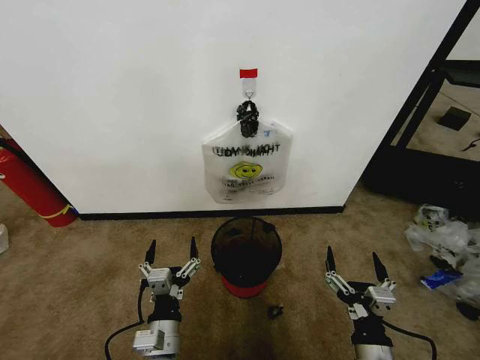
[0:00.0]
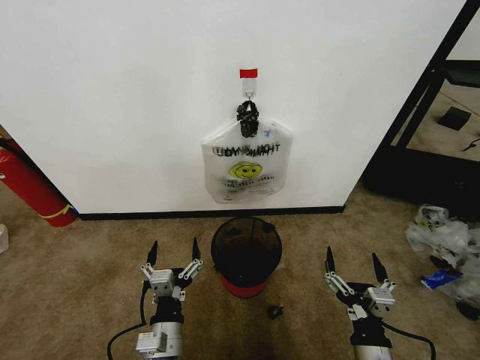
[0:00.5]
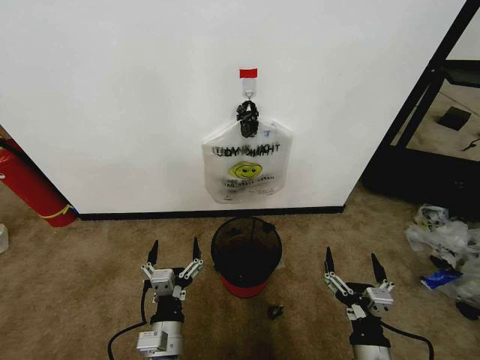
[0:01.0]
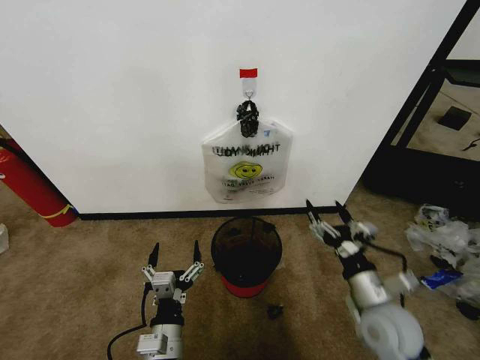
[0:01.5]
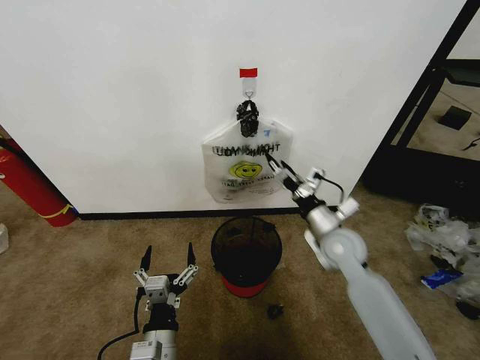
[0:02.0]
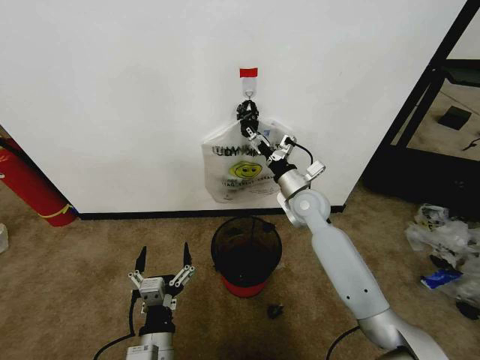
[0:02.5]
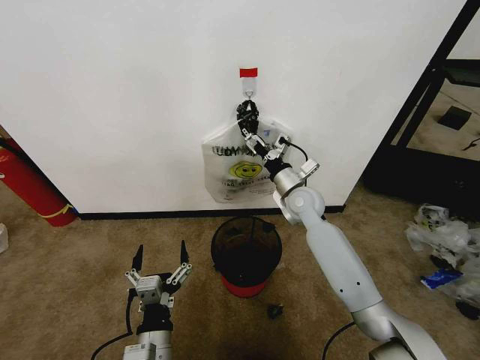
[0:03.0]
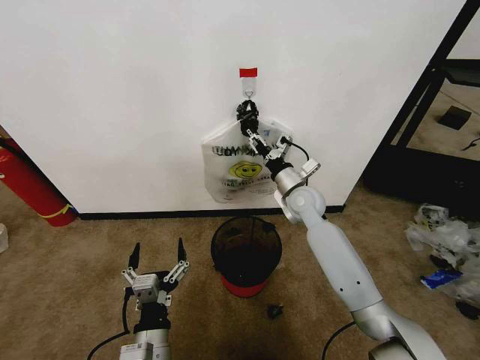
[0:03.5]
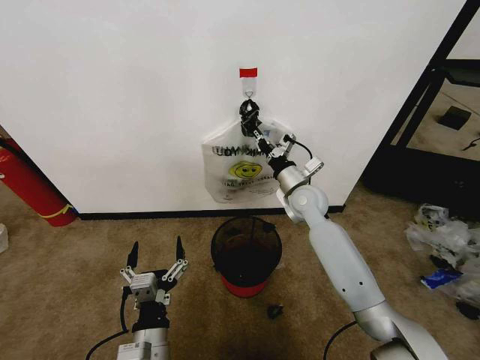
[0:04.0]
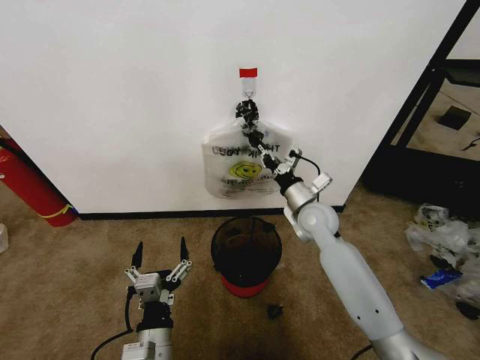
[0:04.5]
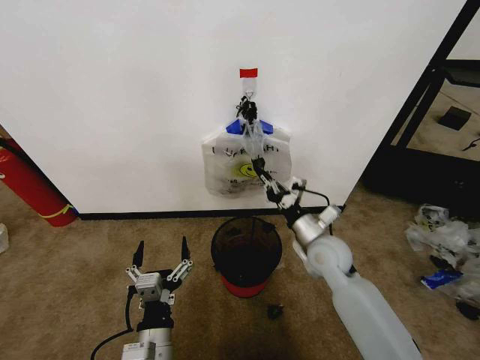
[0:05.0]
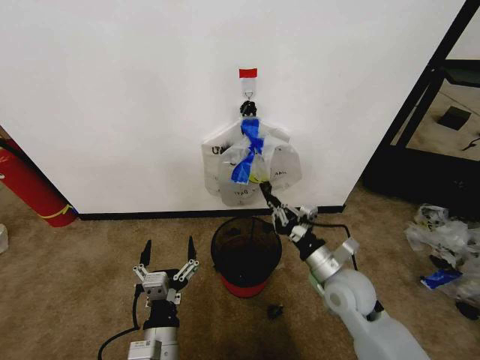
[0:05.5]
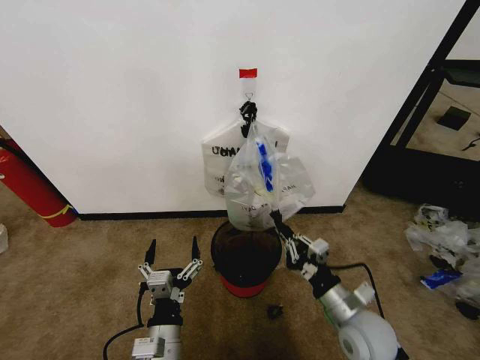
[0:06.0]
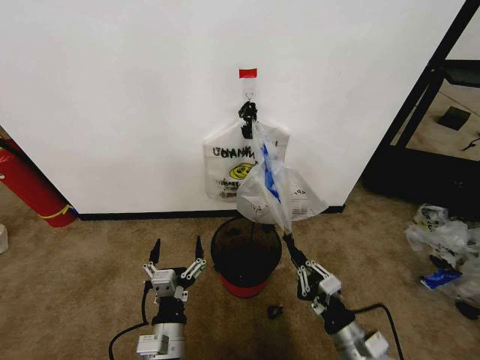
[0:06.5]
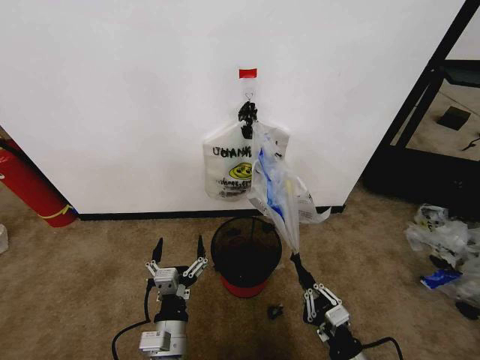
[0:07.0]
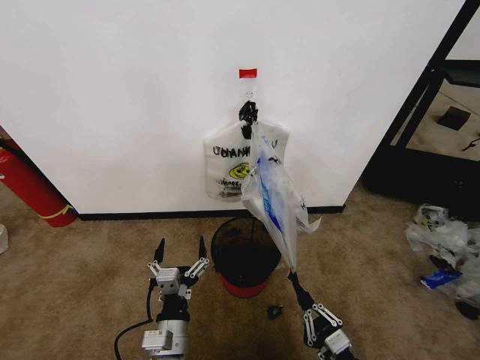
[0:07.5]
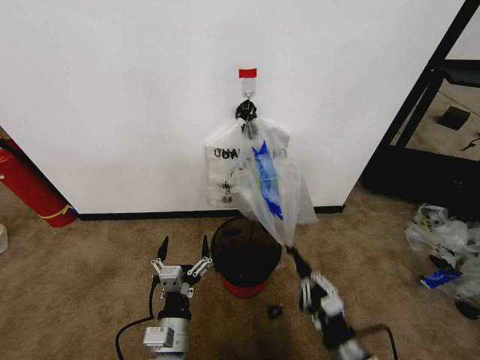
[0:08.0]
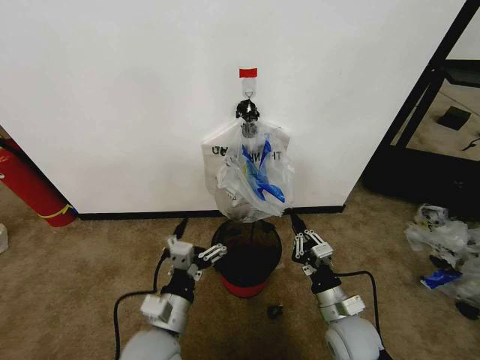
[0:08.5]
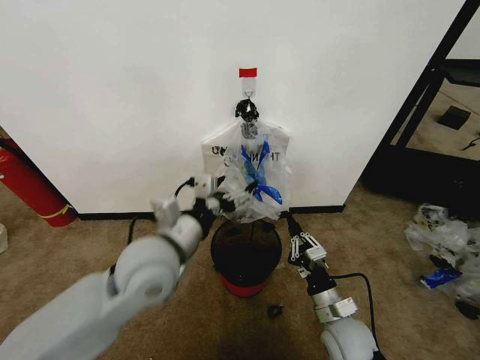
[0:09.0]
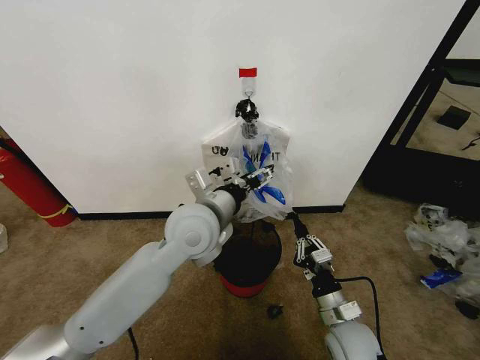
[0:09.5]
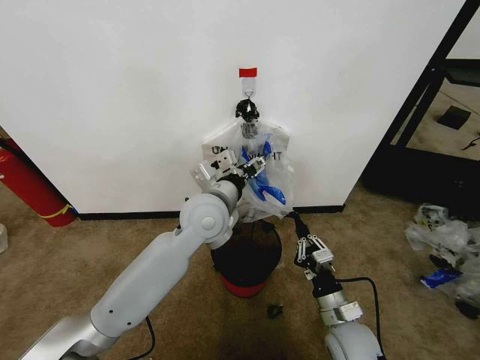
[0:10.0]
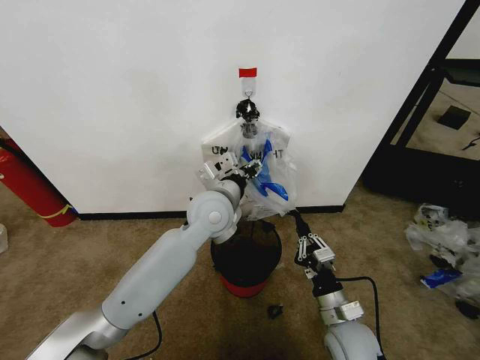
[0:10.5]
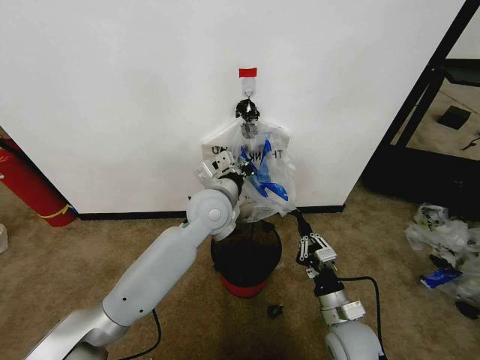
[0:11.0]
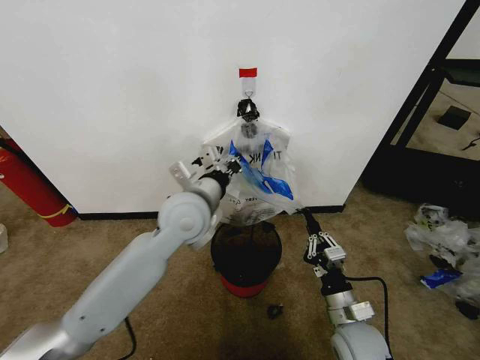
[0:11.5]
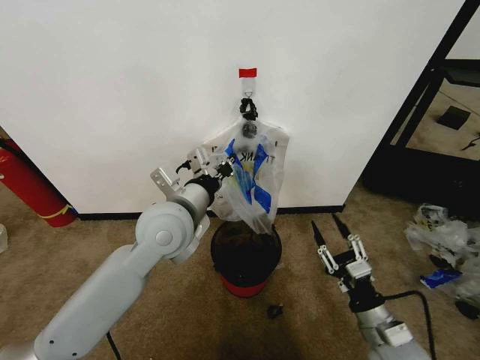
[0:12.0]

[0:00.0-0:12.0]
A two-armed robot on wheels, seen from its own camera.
Task of the whole recording: Pick up the garbage bag from the wall and place it over the trash bin.
0:02.0 to 0:04.0: The right gripper moves forward and to the left, some 15 cm, and closes.
0:04.0 to 0:06.0: The right gripper moves backward, roughly 25 cm.
0:06.0 to 0:08.0: The right gripper travels backward and downward by about 10 cm.
0:08.0 to 0:10.0: The right gripper moves forward, about 10 cm; the left gripper shifts about 30 cm forward and upward.
0:10.0 to 0:12.0: The left gripper shifts approximately 5 cm to the left, and closes its fingers. The right gripper moves to the right, some 5 cm, and opens its fingers.

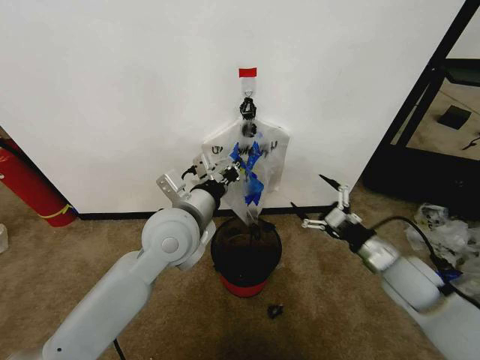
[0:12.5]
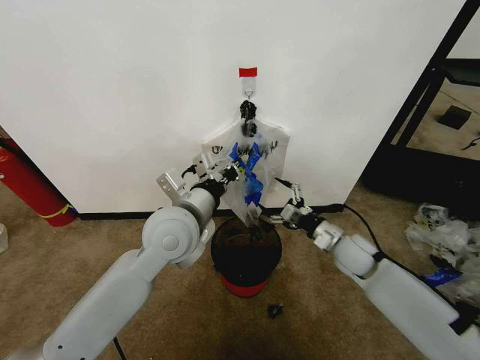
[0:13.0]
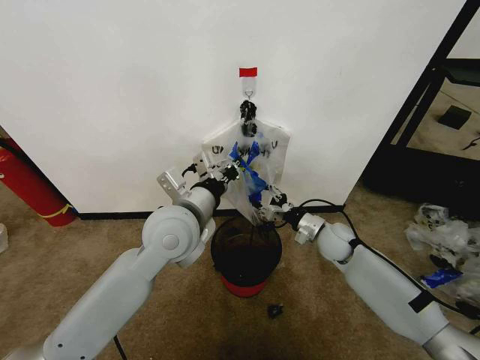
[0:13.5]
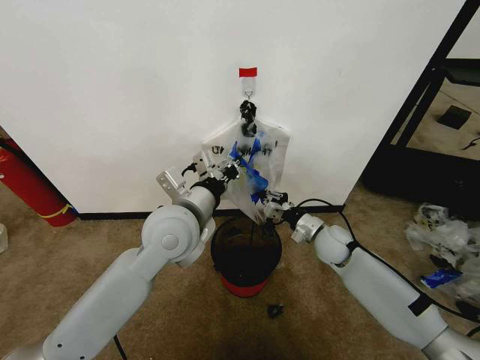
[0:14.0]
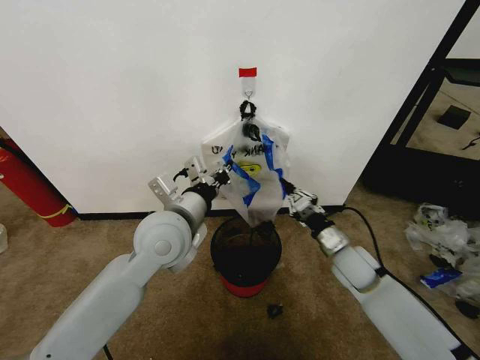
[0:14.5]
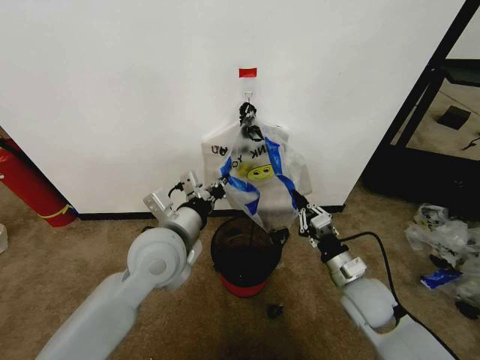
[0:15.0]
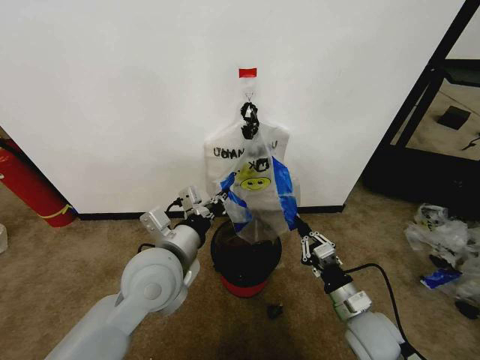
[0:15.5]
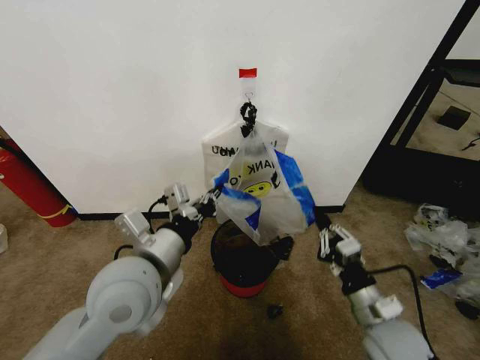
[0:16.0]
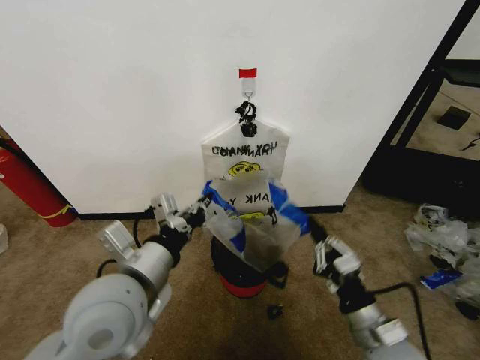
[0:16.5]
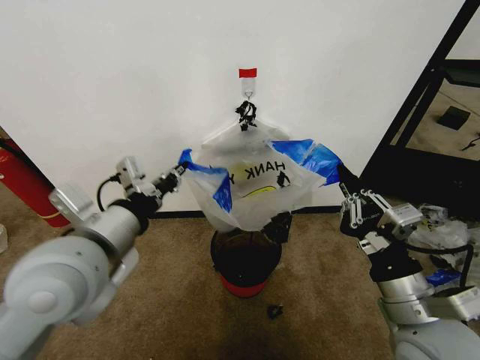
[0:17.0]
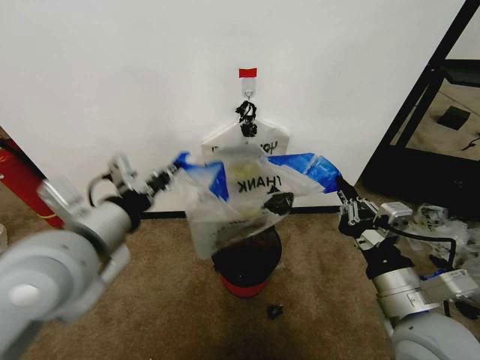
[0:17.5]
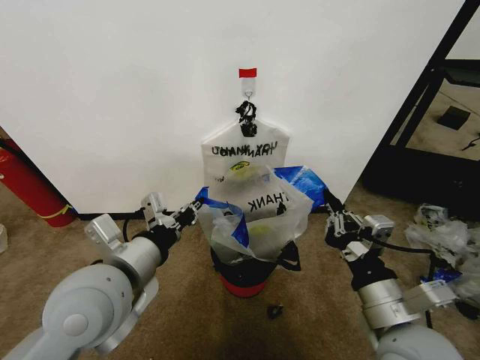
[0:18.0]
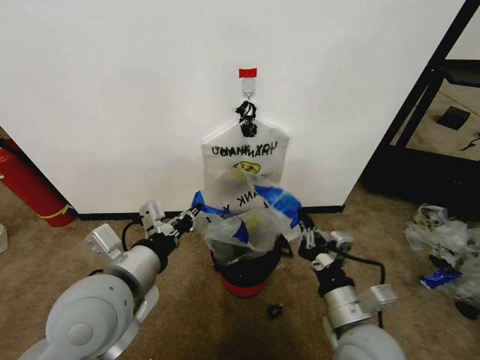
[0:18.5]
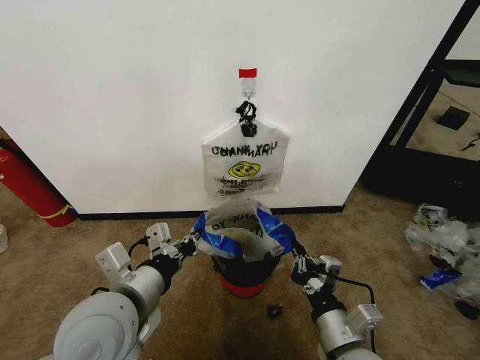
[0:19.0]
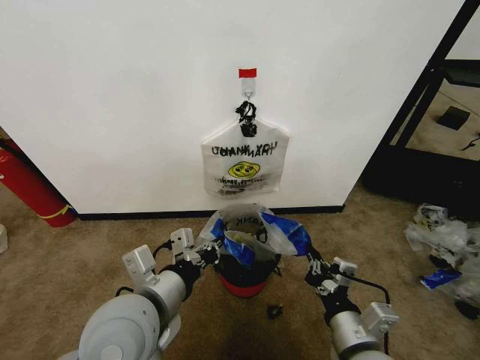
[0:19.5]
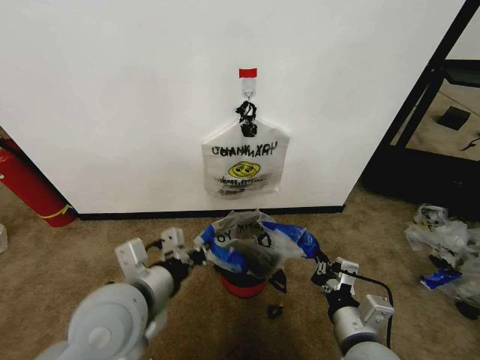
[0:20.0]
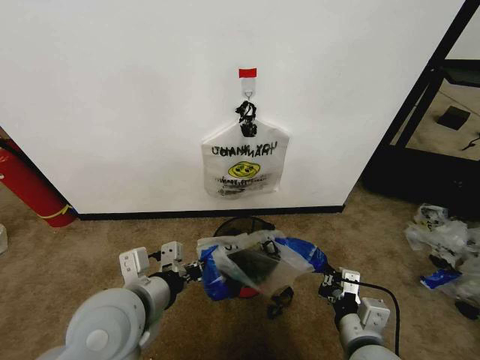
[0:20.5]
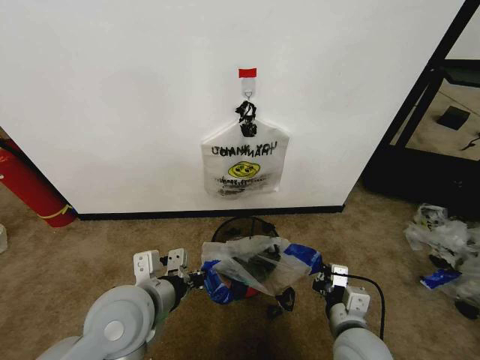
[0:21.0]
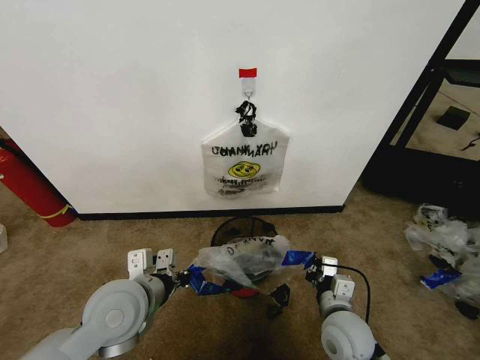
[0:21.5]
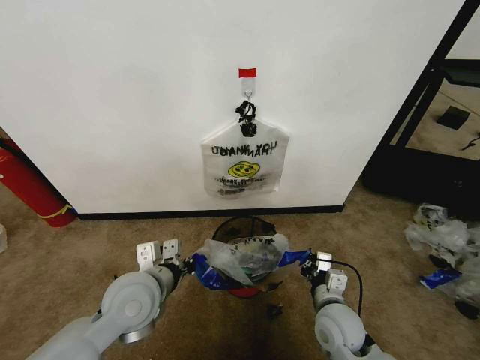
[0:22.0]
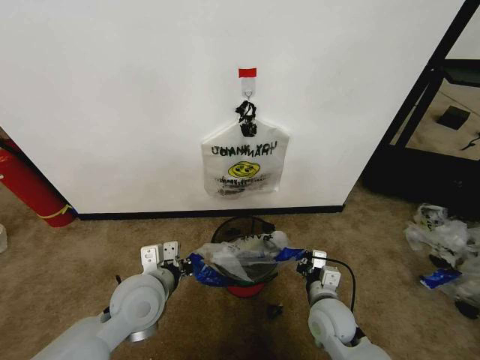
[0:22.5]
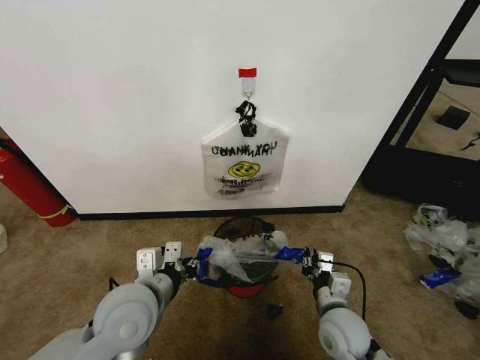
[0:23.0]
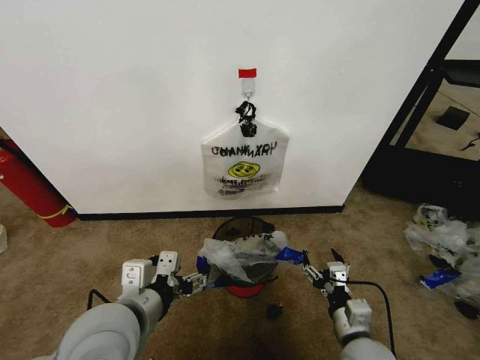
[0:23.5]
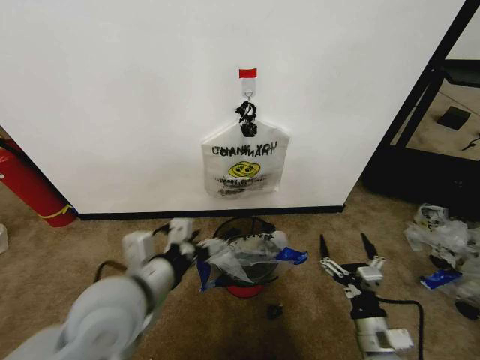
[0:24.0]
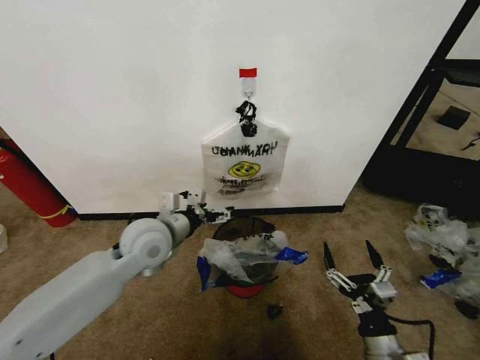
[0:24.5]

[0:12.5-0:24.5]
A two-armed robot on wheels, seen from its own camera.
Task of the whole recording: Pick up the garbage bag from the wall and place it over the trash bin.
0:12.5 to 0:14.5: The right gripper heads to the left, forward and downward, covering roughly 10 cm, and closes up.
0:14.5 to 0:16.5: The left gripper goes approximately 10 cm backward. The right gripper moves backward, some 20 cm.
0:16.5 to 0:18.5: The right gripper travels to the left by about 5 cm, and moves about 15 cm upward and comes back; the left gripper moves roughly 10 cm upward and comes back.
0:20.5 to 0:22.5: The left gripper heads downward and forward, covering about 10 cm, while the right gripper heads forward and downward, covering approximately 15 cm.
0:22.5 to 0:24.5: The right gripper is displaced backward and to the right by roughly 15 cm, and opens its fingers, while the left gripper goes about 10 cm forward and upward, and opens.

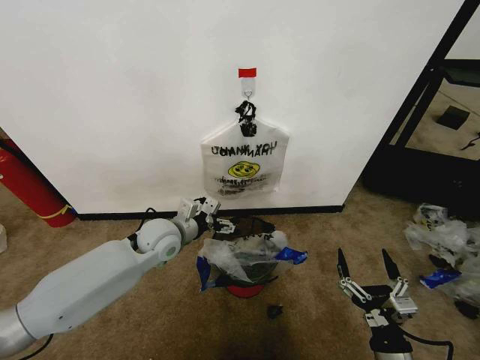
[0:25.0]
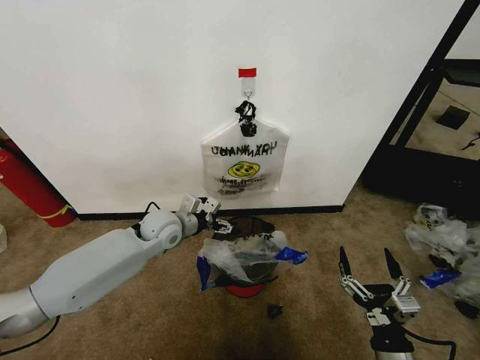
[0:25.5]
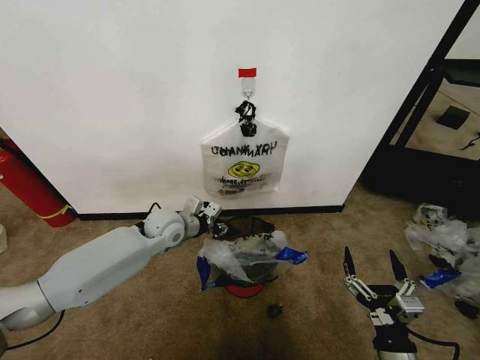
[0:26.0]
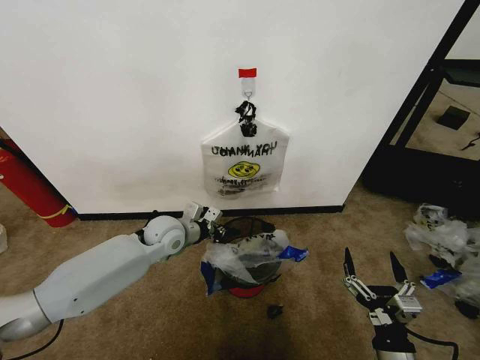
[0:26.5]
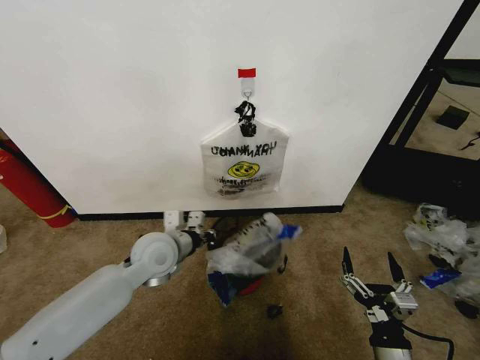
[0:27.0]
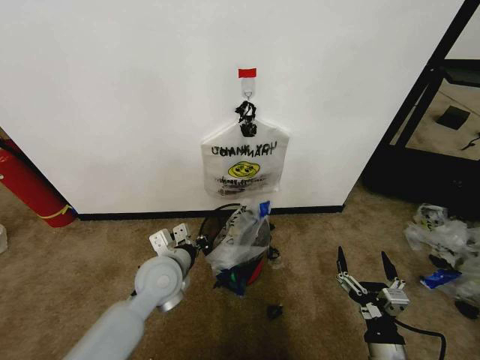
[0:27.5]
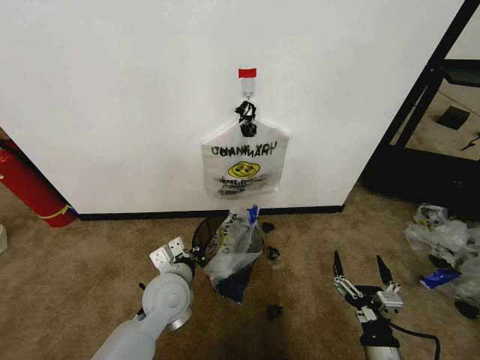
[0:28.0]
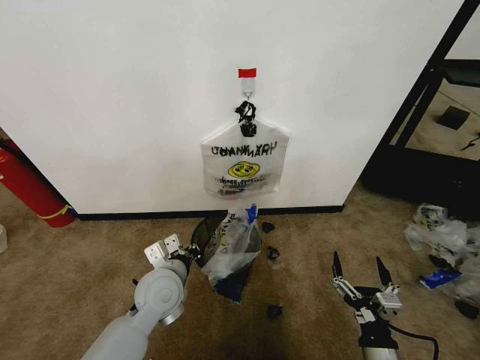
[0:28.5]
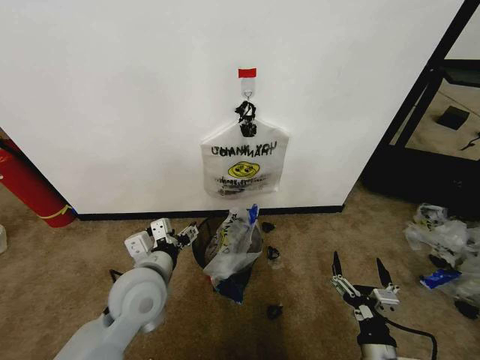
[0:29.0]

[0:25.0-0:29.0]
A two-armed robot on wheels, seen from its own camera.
Task of the whole recording: Pick up the garbage bag from the wall and place it over the trash bin.
0:25.0 to 0:27.0: The left gripper ends up roughly 5 cm from where it was, and closes its fingers.
0:27.0 to 0:29.0: The left gripper moves backward, some 10 cm, and opens up.
